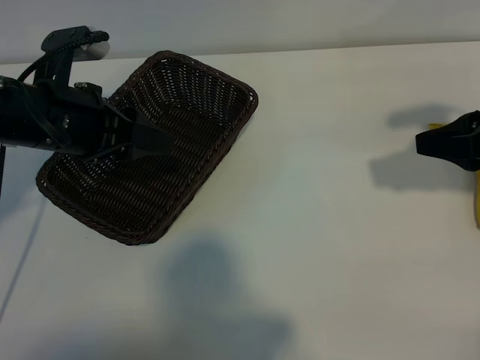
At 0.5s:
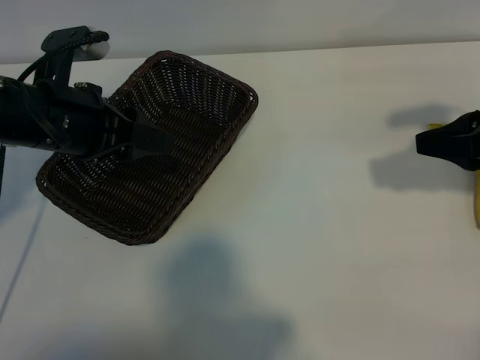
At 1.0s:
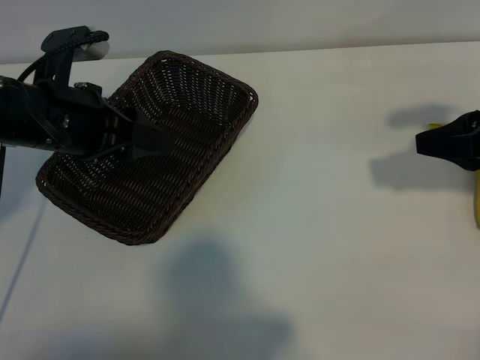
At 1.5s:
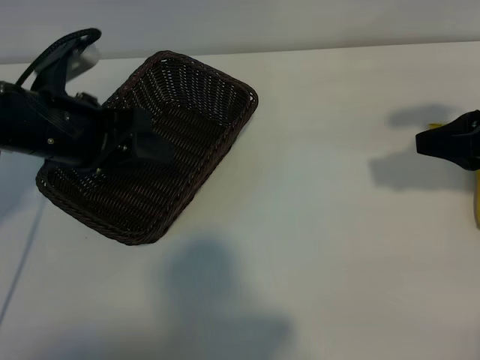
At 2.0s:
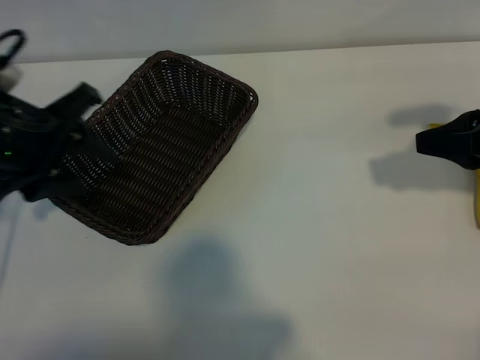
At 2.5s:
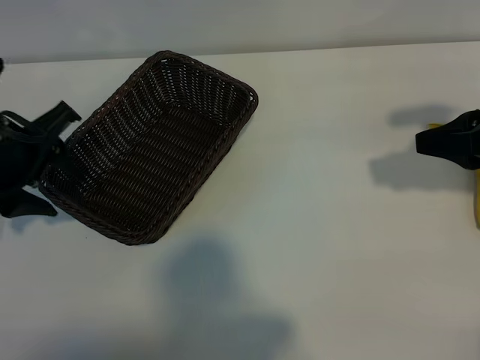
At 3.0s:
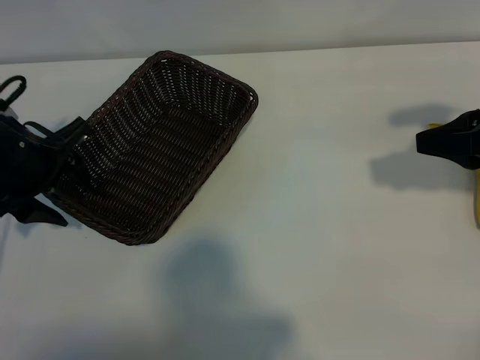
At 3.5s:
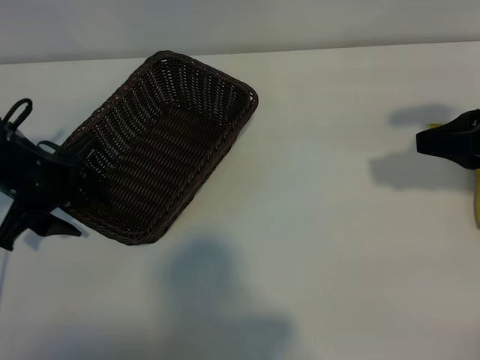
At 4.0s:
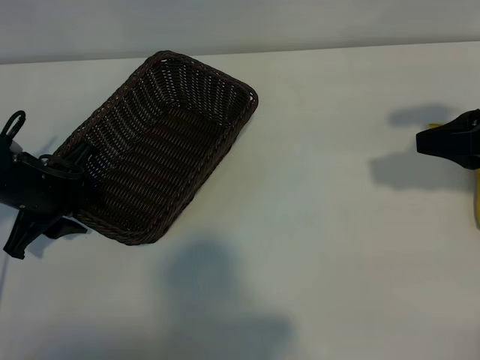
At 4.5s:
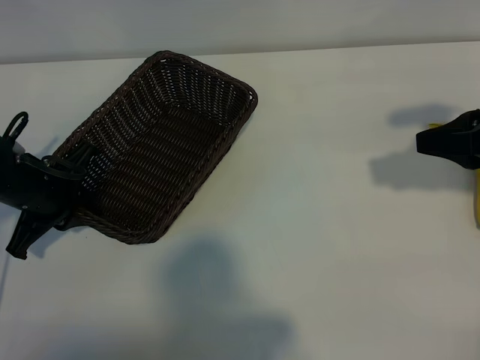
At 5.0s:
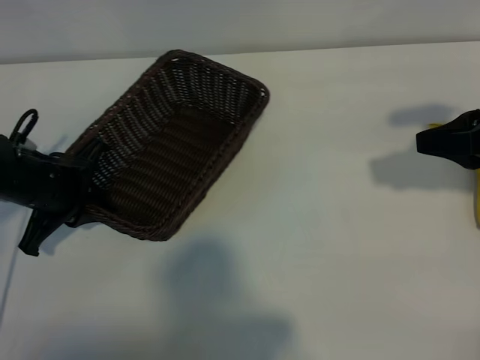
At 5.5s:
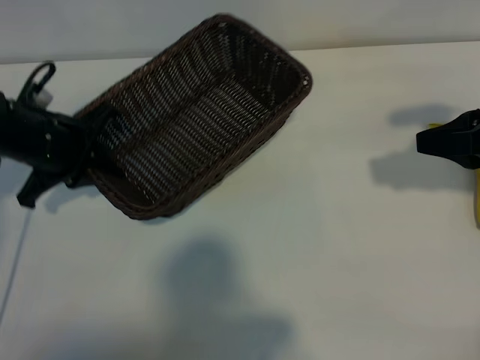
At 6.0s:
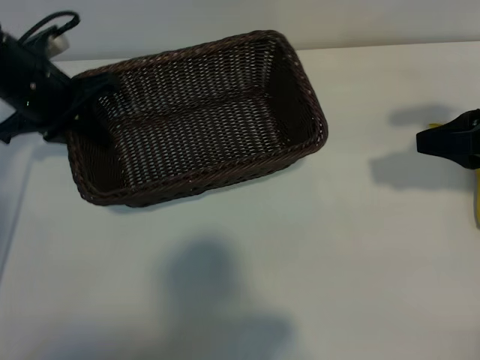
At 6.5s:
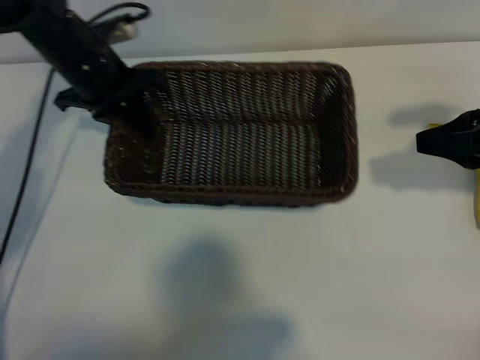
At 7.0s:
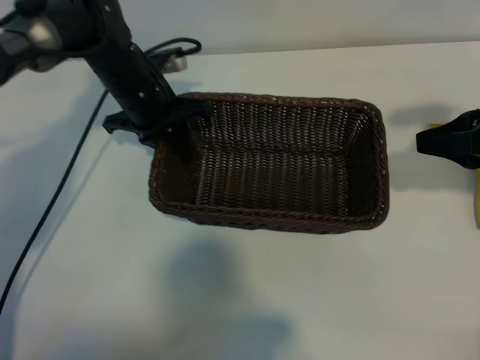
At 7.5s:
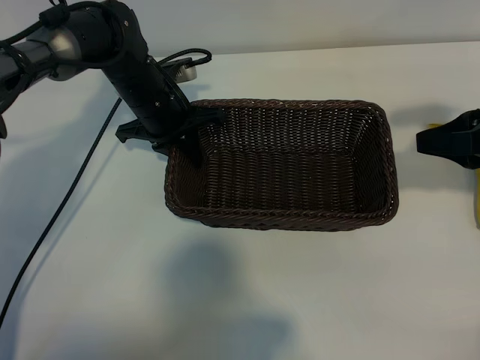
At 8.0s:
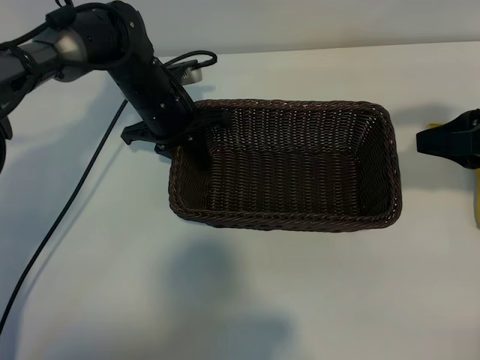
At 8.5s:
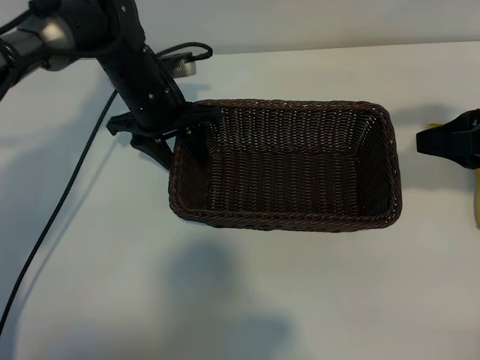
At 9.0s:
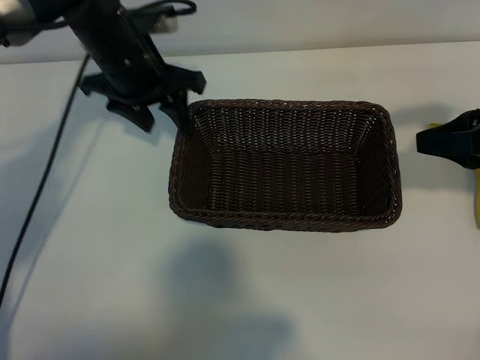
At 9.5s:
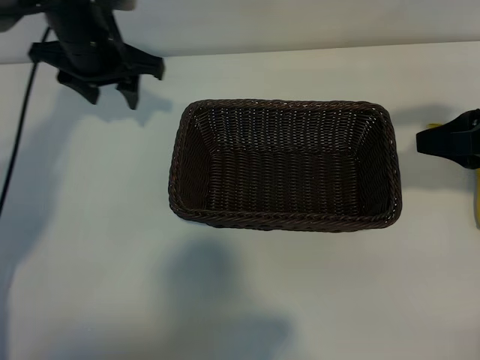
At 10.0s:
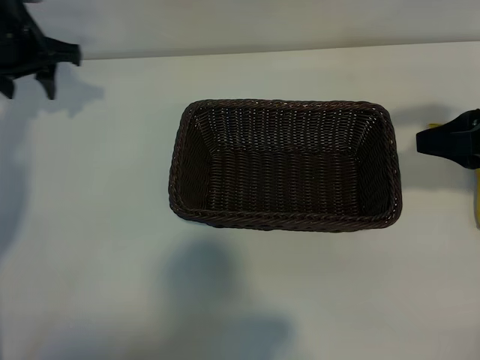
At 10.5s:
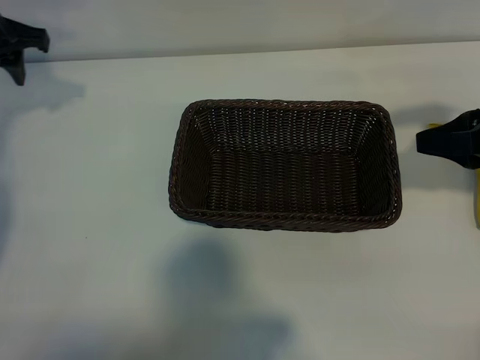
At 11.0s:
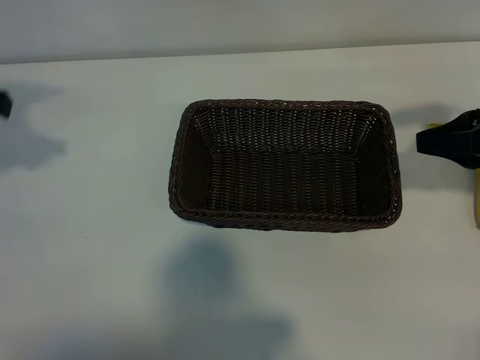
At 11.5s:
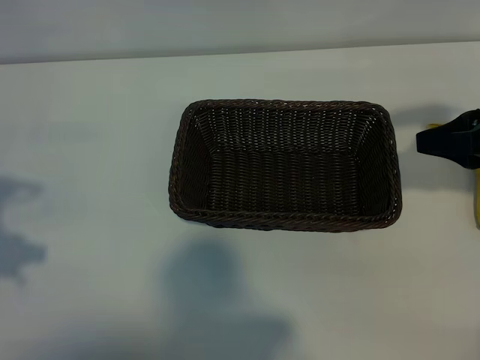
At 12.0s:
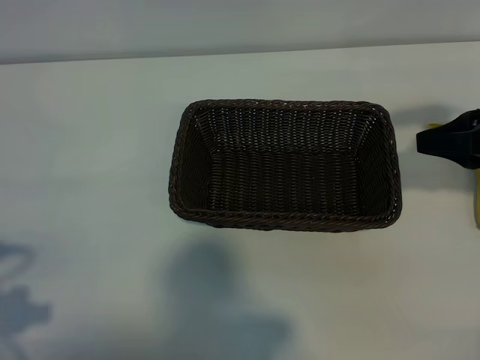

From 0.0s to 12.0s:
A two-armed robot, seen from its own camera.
Task of the whole recording: pick up the banana and put it into the basket.
Step, from 1.5s to 4.5s: Grasp the basket with the left gripper.
Step, from 5.0s to 9.0s: Place the basket in the center of the table with the left gripper.

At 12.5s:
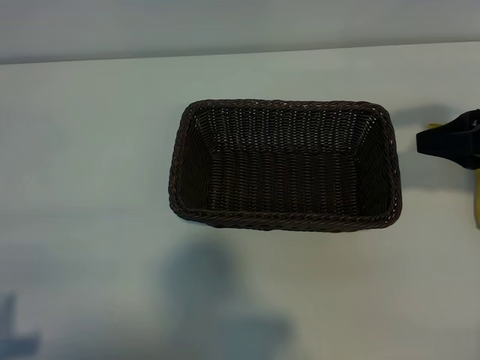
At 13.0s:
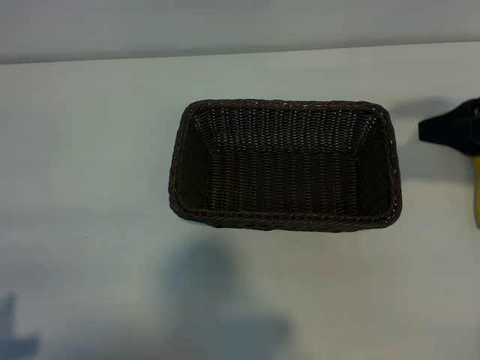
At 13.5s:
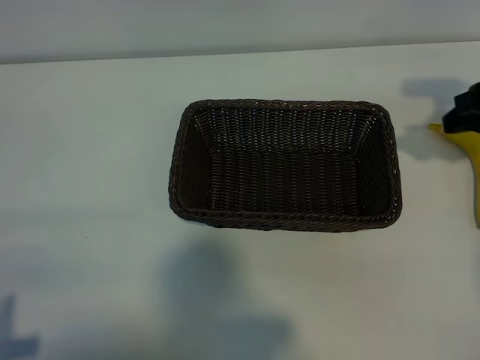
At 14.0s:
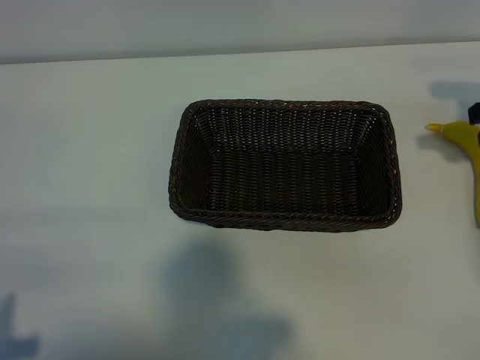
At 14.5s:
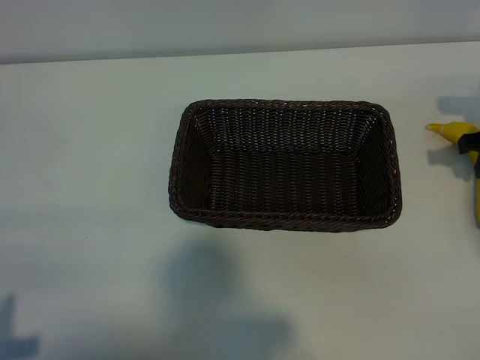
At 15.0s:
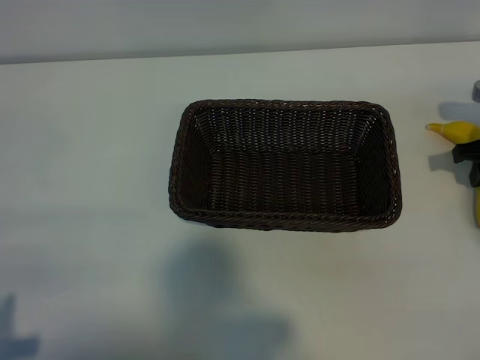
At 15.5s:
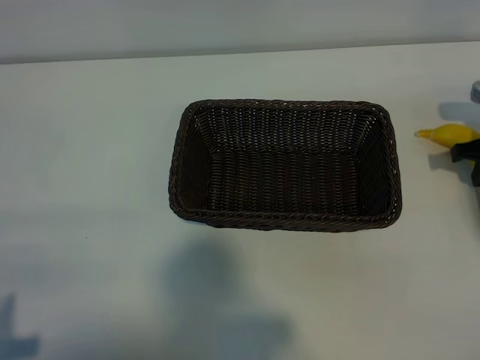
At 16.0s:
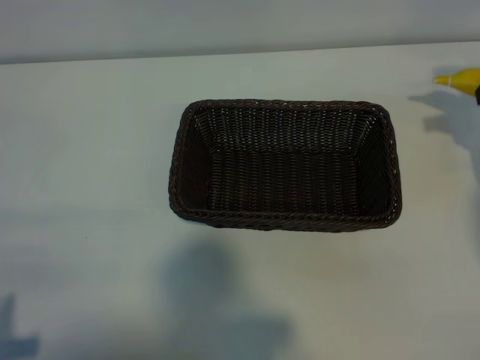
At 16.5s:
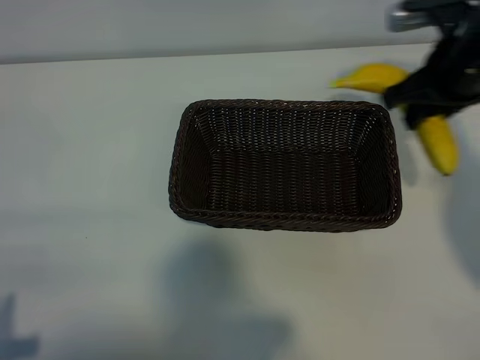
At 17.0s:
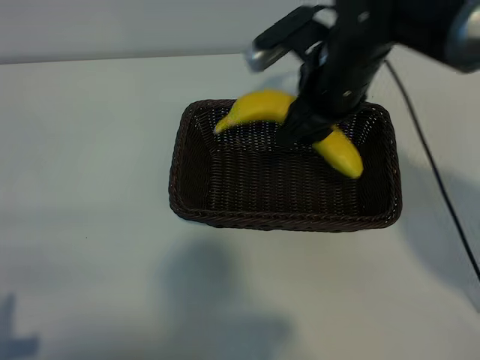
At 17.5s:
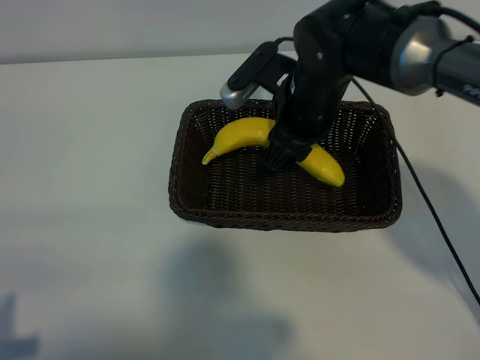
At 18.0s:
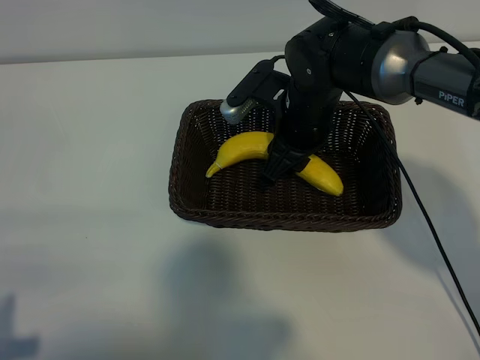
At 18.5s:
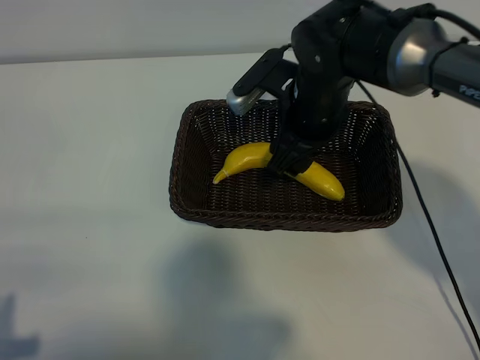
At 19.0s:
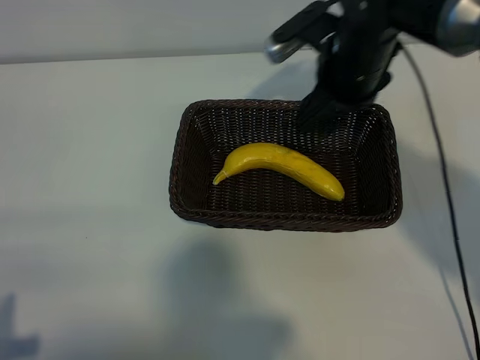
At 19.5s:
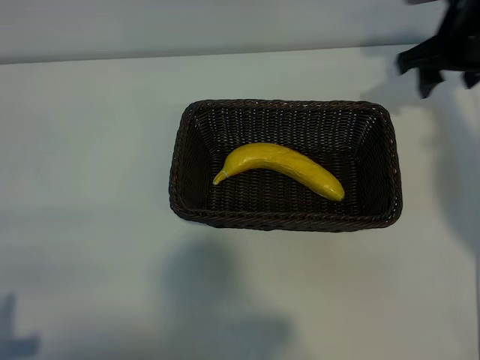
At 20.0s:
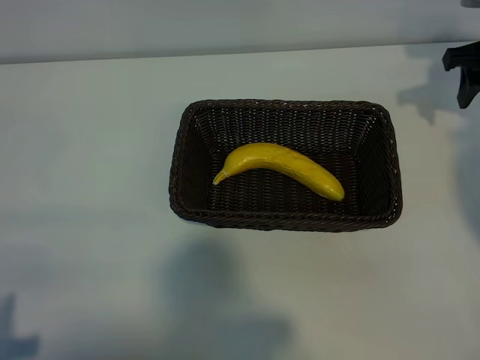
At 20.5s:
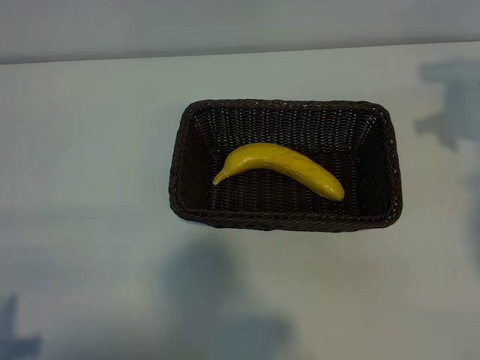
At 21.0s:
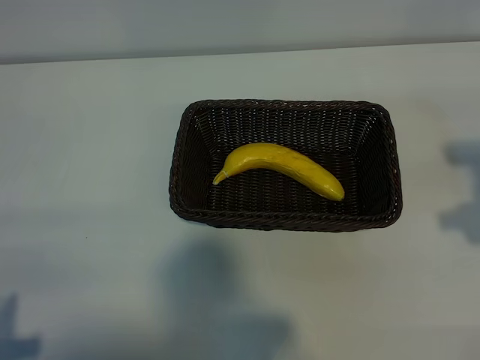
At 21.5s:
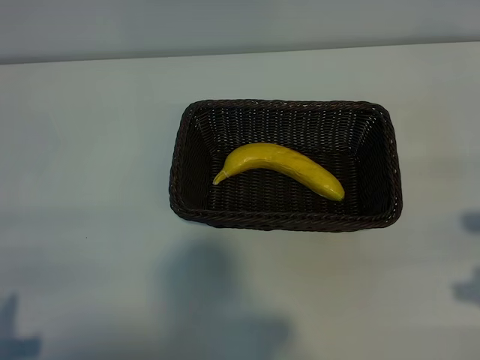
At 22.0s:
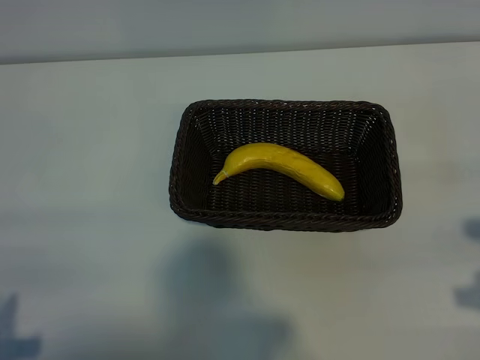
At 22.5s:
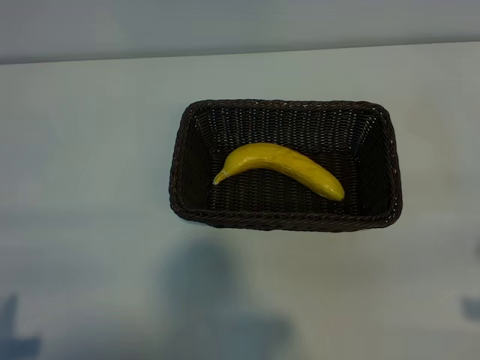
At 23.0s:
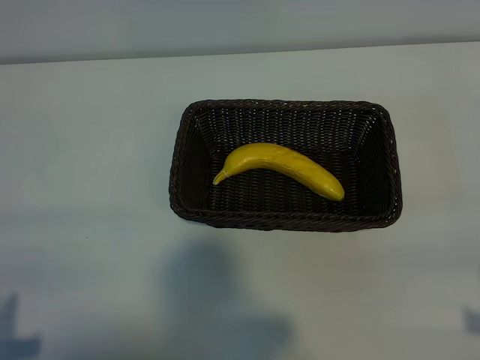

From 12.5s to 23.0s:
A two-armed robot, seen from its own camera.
Task of the whole recording: pick up the banana and put it into the basket.
Step, from 12.5s to 15.5s: Grasp the banana with right gripper.
Step, from 16.0s to 18.5s: Place the banana in the basket with right gripper.

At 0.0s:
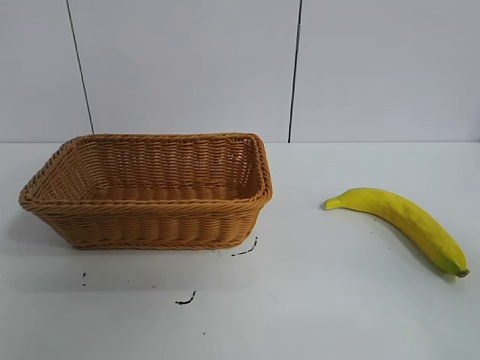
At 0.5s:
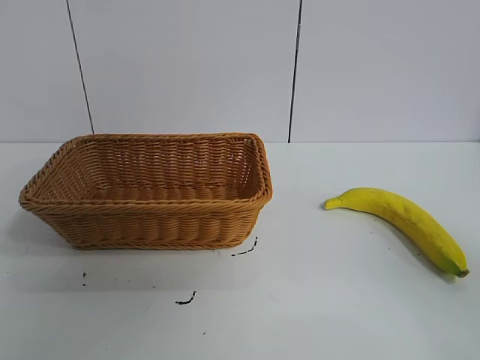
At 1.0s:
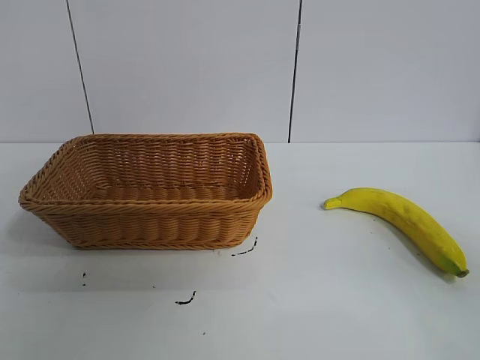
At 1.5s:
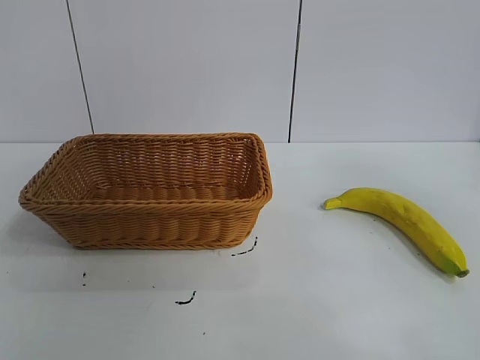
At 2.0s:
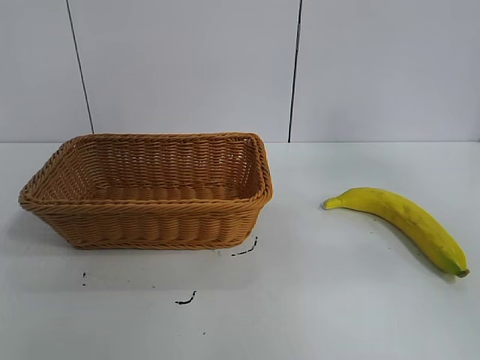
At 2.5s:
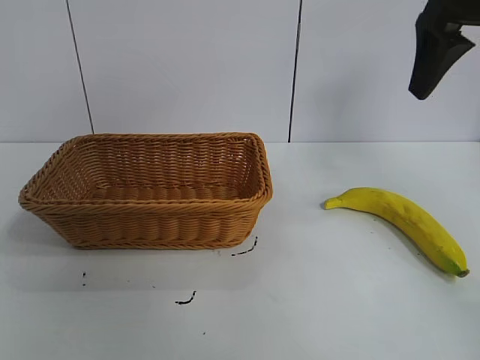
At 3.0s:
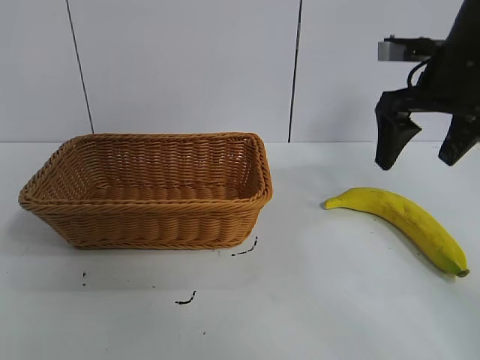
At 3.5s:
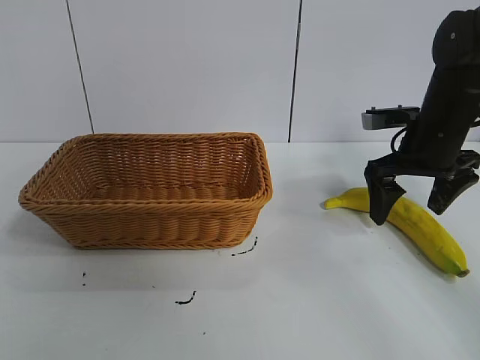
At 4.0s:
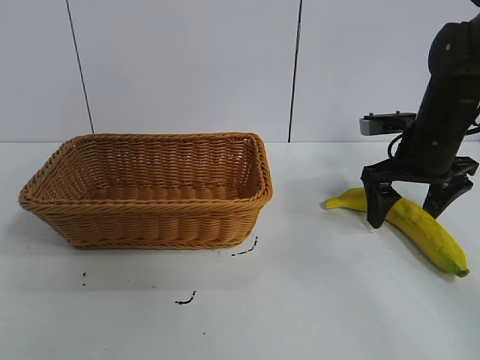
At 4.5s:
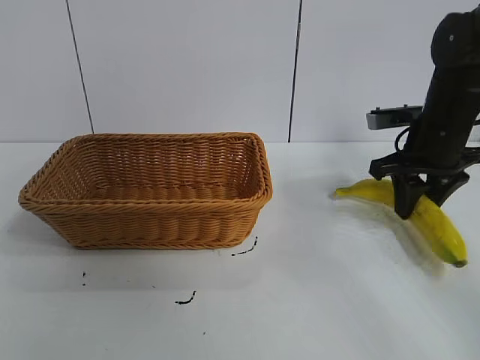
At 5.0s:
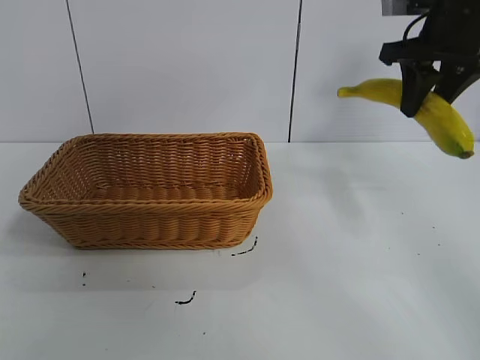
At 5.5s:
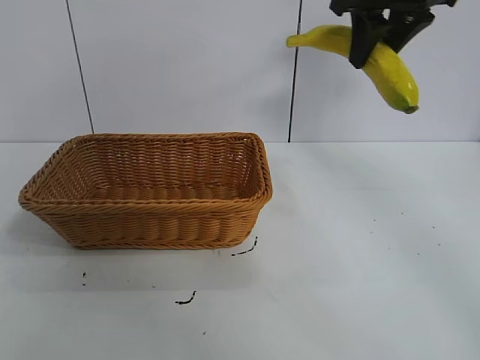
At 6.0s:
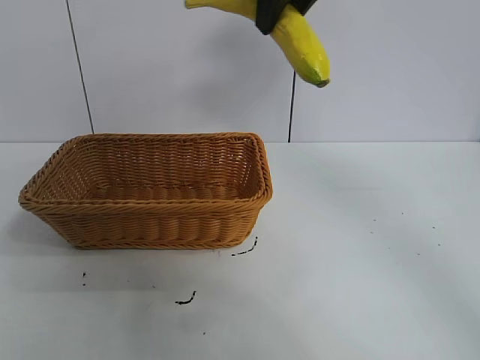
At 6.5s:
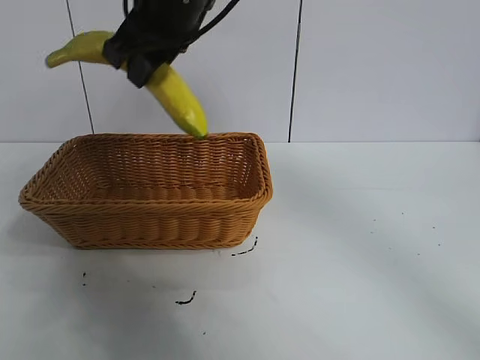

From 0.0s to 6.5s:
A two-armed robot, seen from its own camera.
Task of the whole recording: pick up the banana and put it into the basket.
Step, from 1.5s to 4.5s: Grasp the banana with right gripper.
